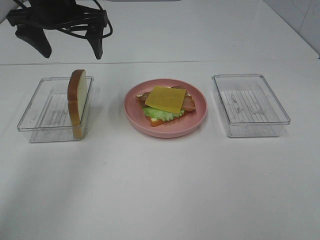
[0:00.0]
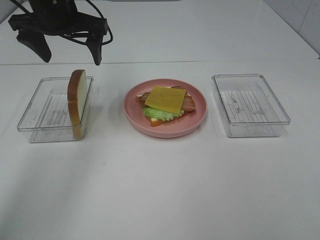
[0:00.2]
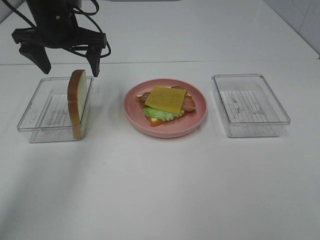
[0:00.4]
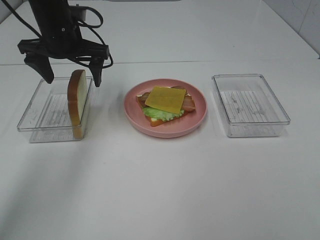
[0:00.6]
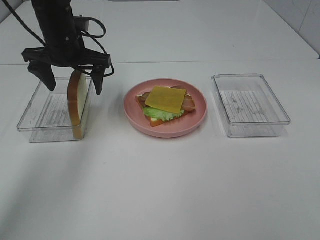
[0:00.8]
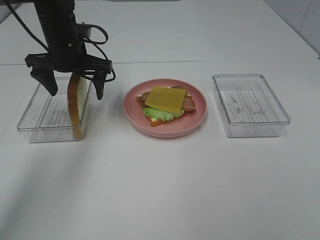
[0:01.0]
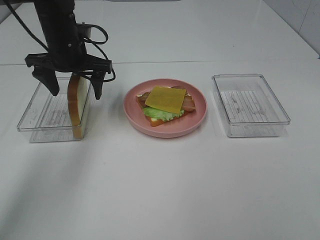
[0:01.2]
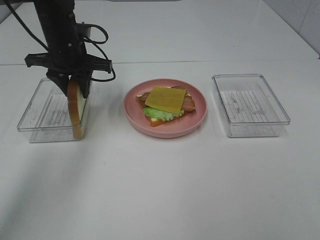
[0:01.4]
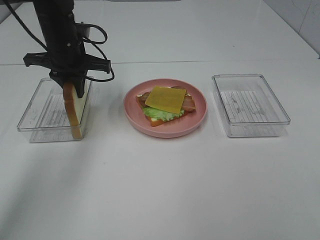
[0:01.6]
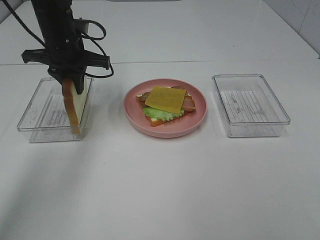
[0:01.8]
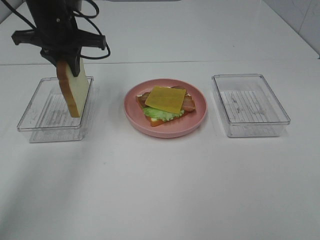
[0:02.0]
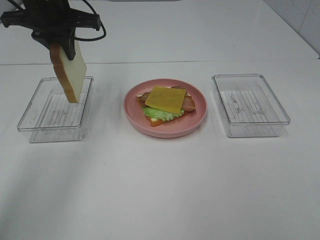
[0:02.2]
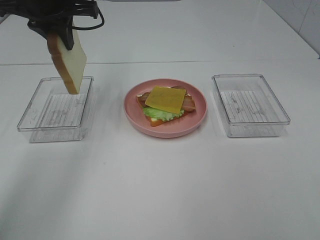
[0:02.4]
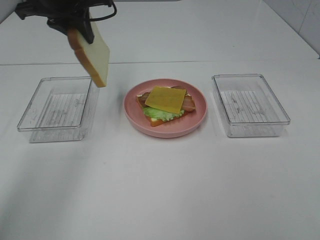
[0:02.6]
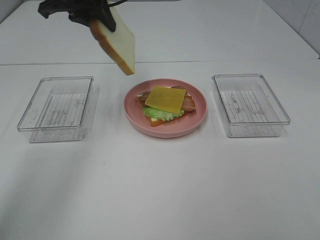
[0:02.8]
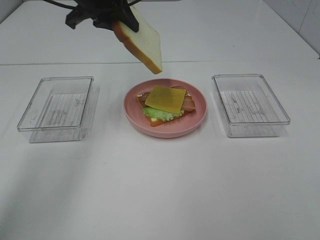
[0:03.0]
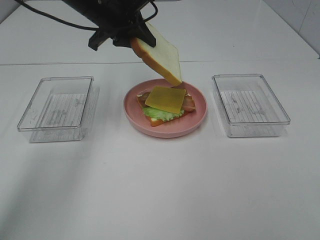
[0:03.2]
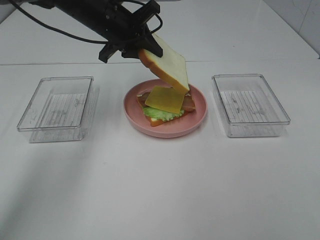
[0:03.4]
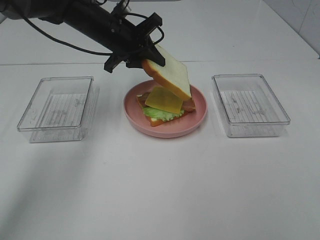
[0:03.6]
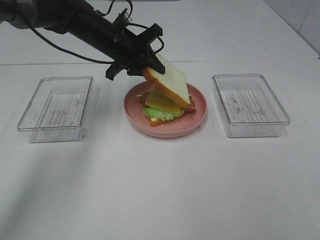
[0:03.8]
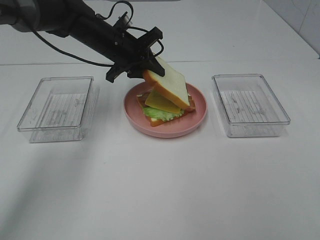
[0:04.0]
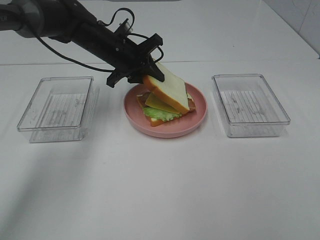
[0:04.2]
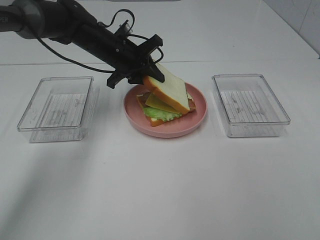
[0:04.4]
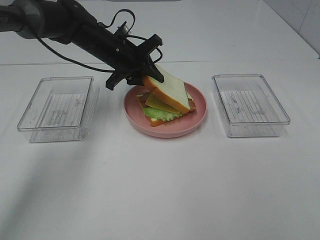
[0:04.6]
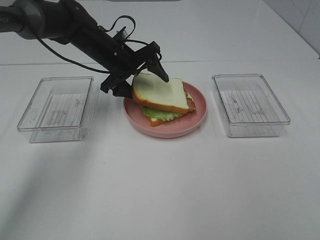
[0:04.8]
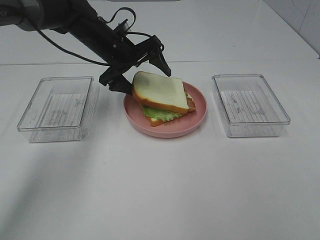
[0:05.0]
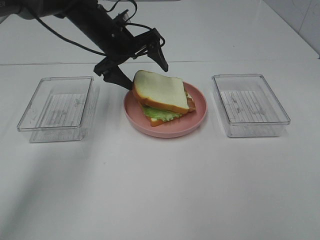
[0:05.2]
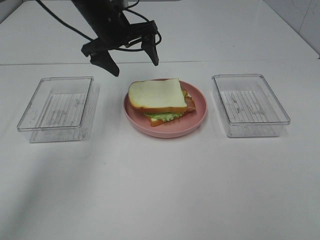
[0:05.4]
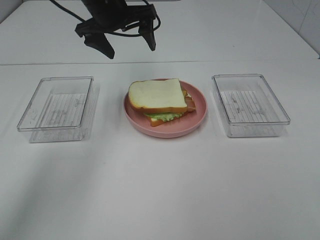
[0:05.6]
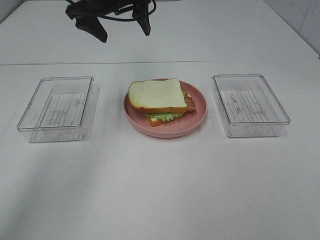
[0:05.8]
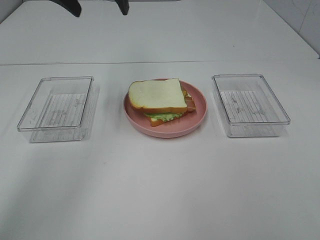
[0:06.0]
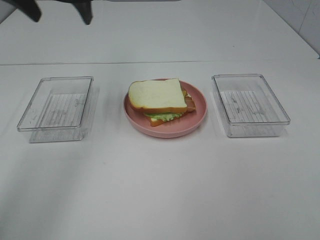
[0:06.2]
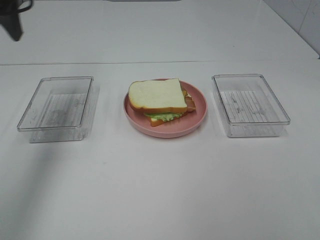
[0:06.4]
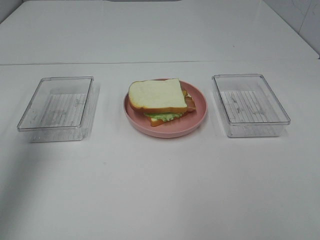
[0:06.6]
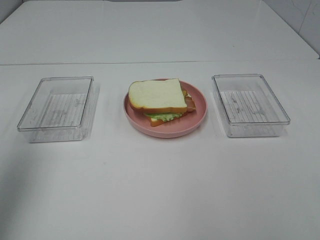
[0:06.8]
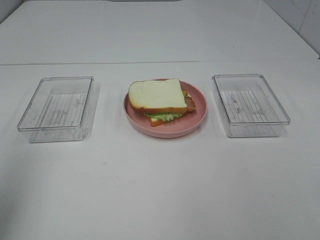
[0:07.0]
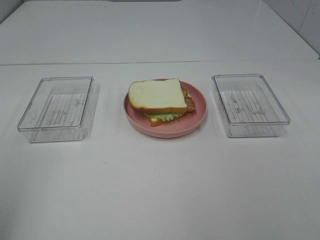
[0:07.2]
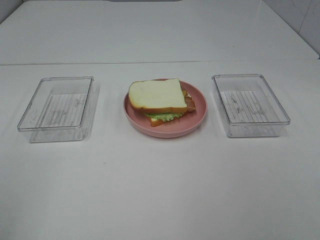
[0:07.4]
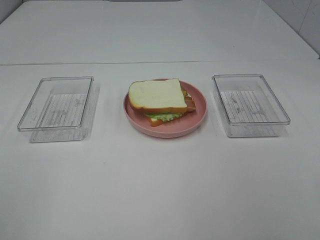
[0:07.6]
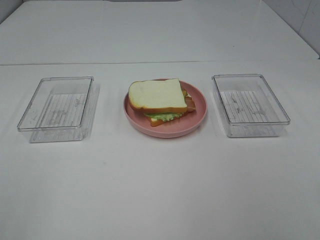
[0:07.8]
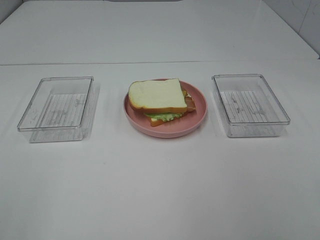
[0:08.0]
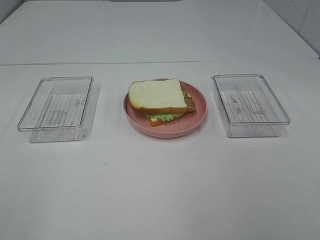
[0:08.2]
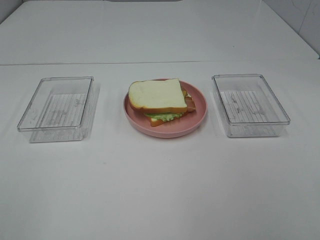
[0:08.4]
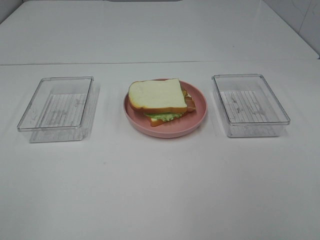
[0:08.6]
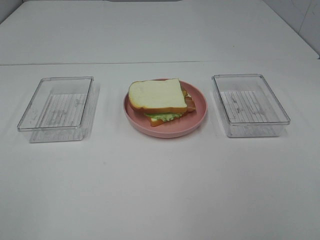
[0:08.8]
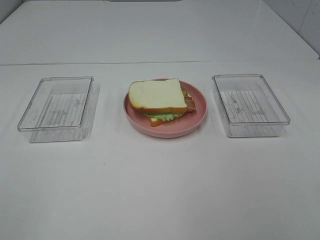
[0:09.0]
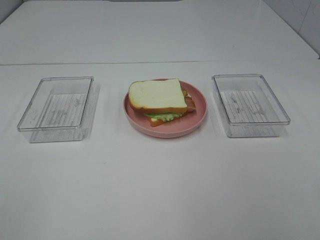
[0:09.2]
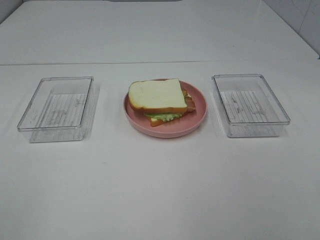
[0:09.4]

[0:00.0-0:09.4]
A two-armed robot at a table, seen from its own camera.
Task of the whole recording: Make sandwiches.
Step, 0:01.8 to 0:05.4: Left hand:place bacon on bacon.
0:00.0 to 0:01.6: The left gripper shifts approximately 10 cm downward, and closes.
0:01.6 to 0:03.2: The left gripper is displaced to the right and upward by approximately 10 cm.
0:03.2 to 0:04.8: The left gripper travels downward by some 10 cm, and opens its fingers.
0:04.8 to 0:06.2: The left gripper shifts about 20 cm upward and to the left.
0:06.2 to 0:07.8: The left gripper moves backward, approximately 40 cm.

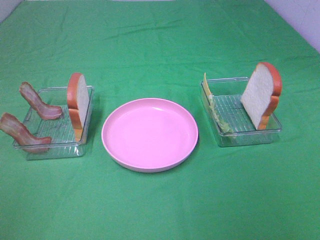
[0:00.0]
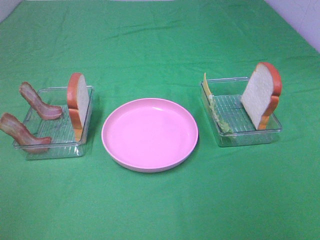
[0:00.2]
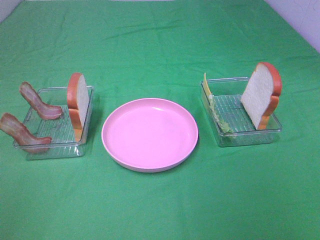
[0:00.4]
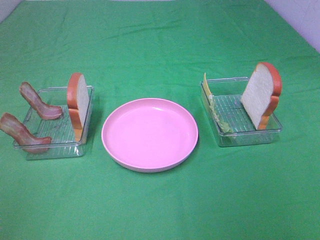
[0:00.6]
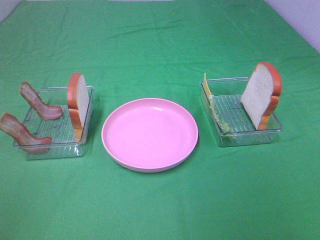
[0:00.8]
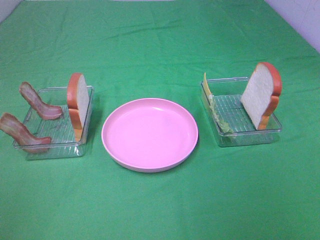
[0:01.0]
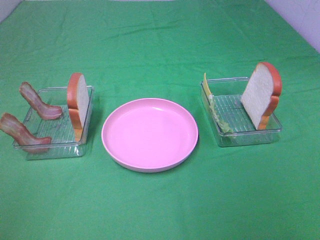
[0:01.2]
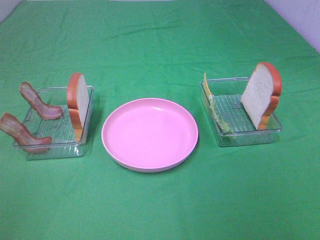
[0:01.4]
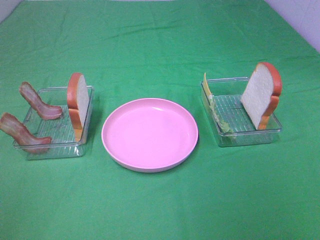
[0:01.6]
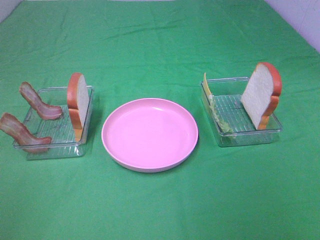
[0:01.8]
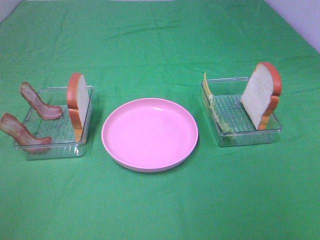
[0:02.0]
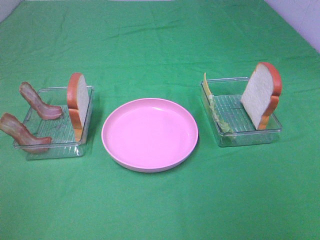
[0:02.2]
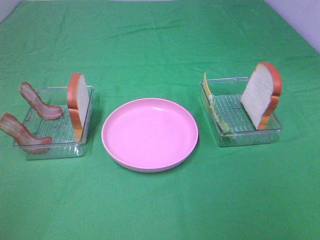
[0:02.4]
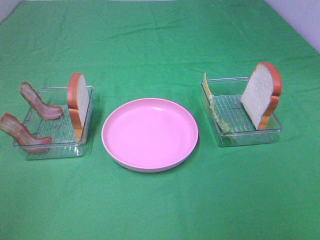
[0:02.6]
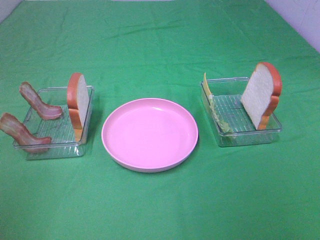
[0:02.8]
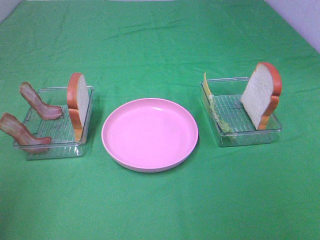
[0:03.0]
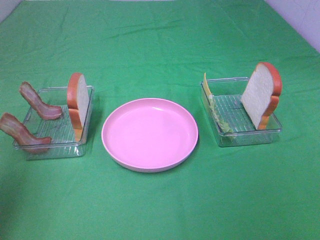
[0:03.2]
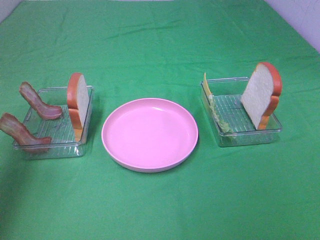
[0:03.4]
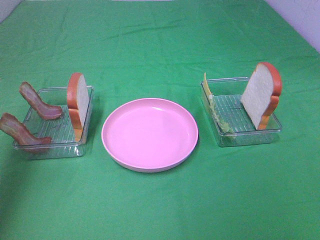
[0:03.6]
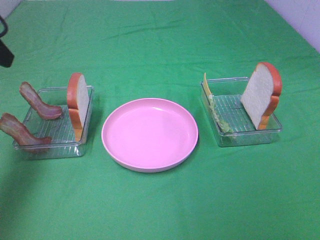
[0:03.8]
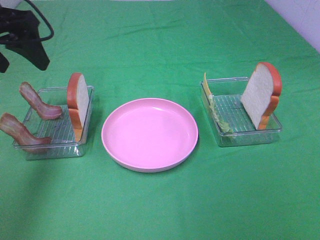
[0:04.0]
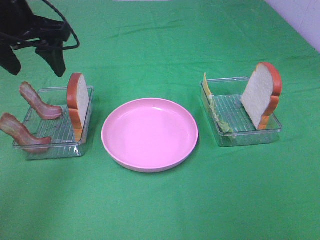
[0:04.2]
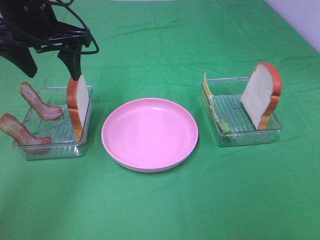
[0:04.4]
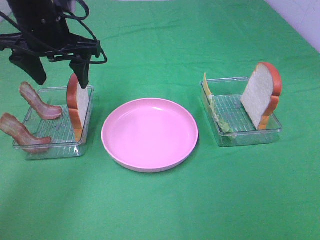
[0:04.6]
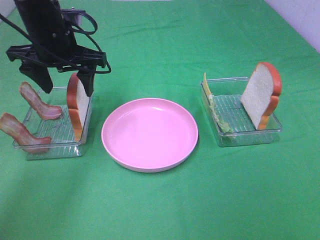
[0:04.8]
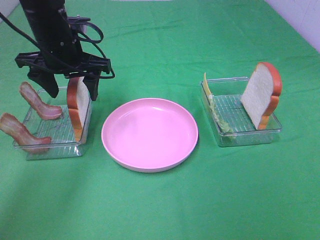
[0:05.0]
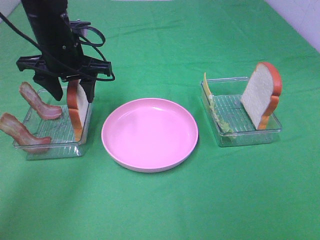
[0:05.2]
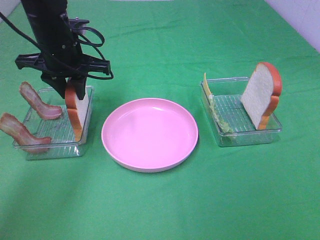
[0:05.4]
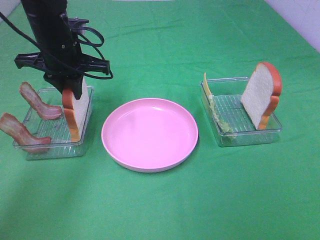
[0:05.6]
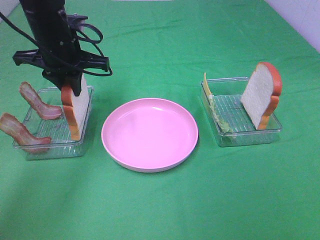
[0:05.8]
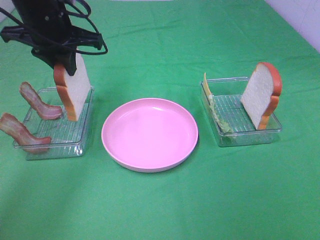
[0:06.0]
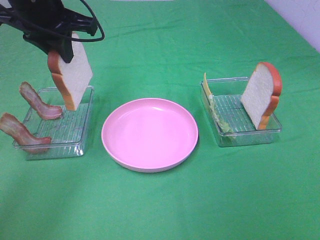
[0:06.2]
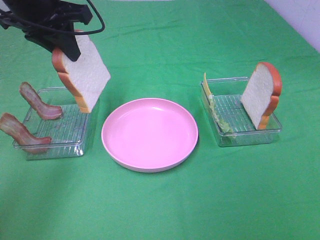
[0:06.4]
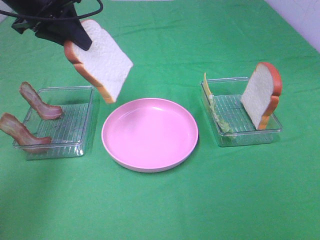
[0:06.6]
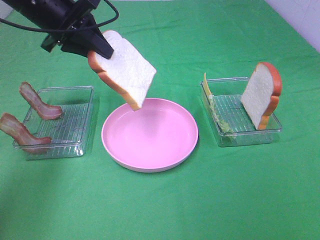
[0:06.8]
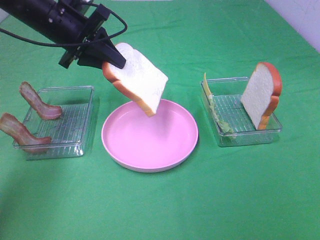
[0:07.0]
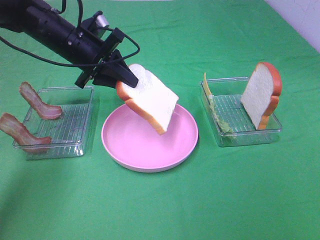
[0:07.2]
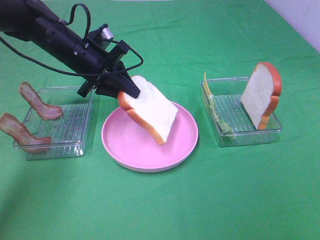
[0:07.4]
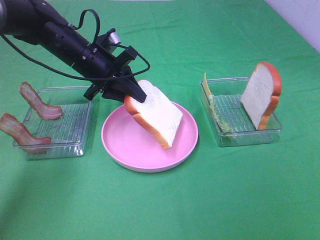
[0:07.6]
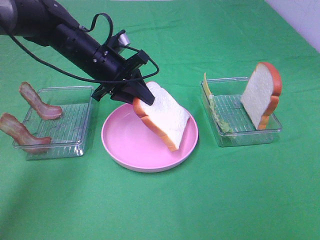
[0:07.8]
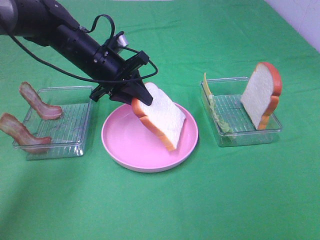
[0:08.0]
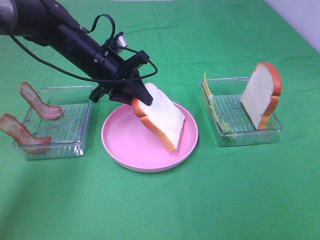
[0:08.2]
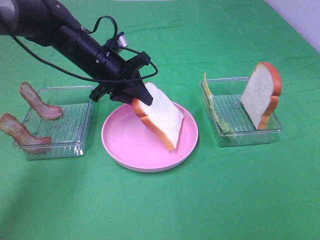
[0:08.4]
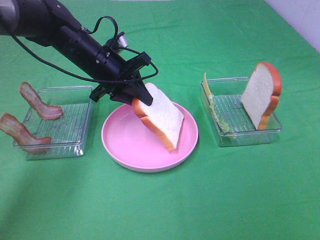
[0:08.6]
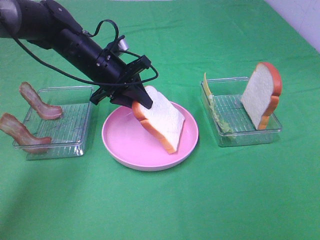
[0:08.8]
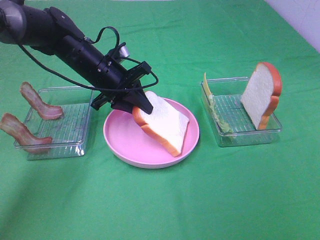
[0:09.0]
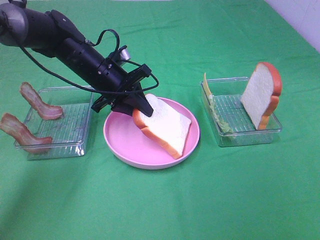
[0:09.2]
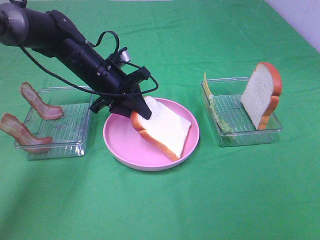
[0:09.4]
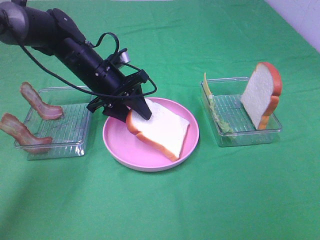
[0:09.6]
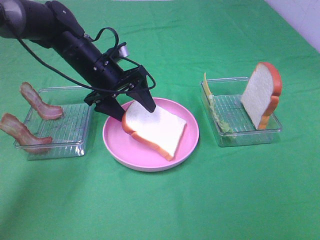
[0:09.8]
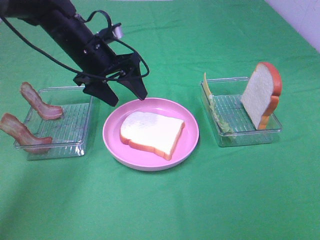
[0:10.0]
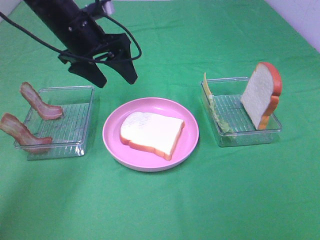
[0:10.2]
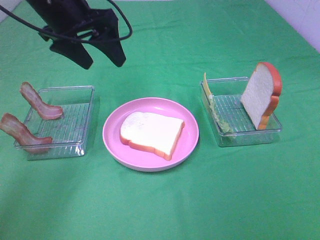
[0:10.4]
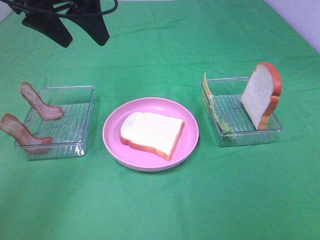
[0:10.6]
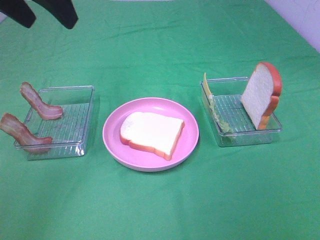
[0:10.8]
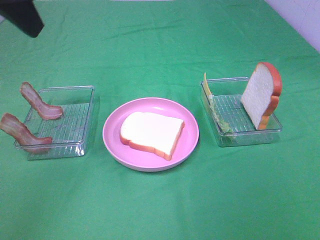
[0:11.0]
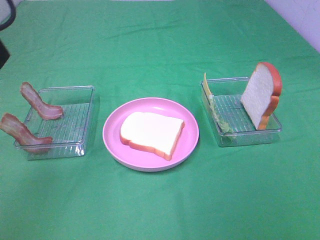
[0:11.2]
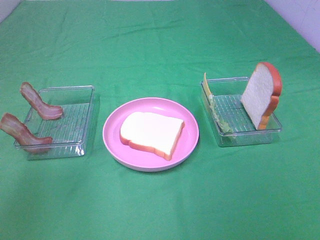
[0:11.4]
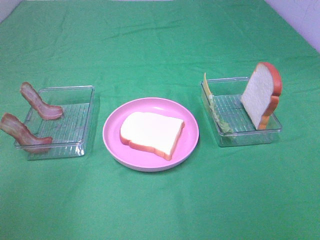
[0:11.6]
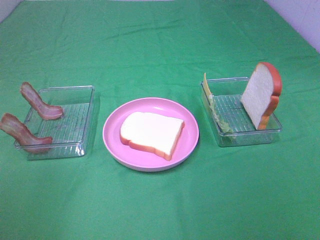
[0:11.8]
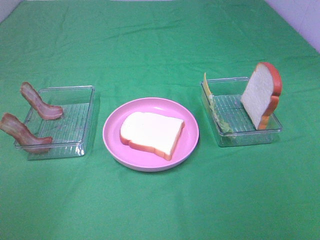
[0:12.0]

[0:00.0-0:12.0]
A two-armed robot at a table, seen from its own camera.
Task of the whole recording: Make sandwiches.
Step, 0:00.0 to 0:05.6: Left hand:grab the bread slice.
Step, 0:05.8 to 0:10.0: Left hand:place the bread slice on the plate.
0:00.0 to 0:01.6: Both grippers stay about where they are.
0:03.0 to 0:04.4: The left gripper goes about 30 cm forward and to the right.
0:04.4 to 0:06.0: The left gripper closes its fingers.
0:06.0 to 0:07.6: The left gripper is displaced downward by about 10 cm.
0:07.6 to 0:09.0: There are only small adjustments of the grippers.
0:09.0 to 0:10.4: The left gripper is displaced upward by approximately 15 cm, and opens its fingers.
0:10.4 to 0:12.0: The left gripper moves backward and to the left, some 35 cm.

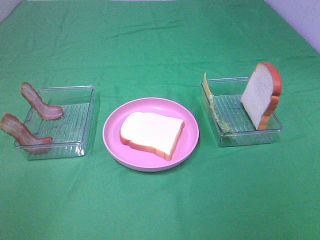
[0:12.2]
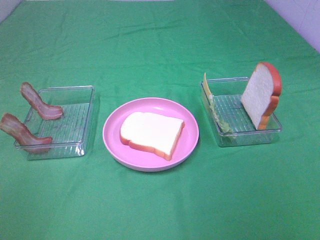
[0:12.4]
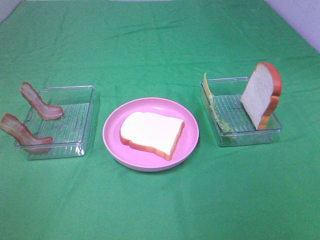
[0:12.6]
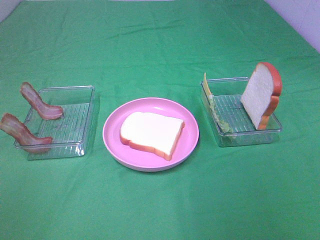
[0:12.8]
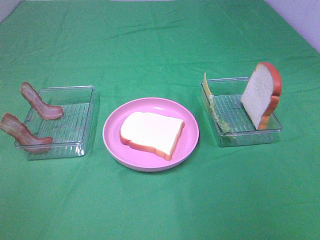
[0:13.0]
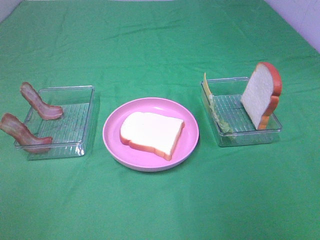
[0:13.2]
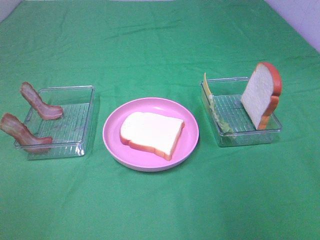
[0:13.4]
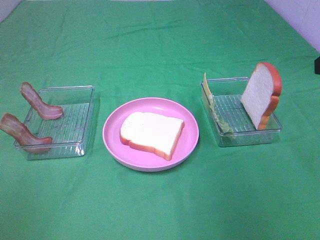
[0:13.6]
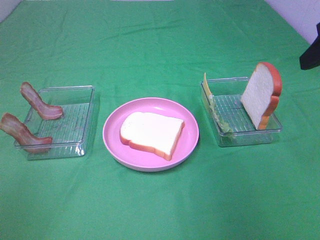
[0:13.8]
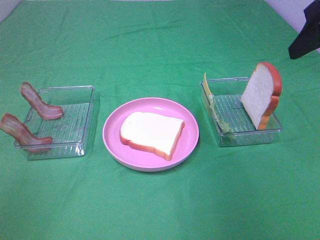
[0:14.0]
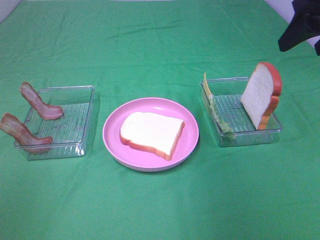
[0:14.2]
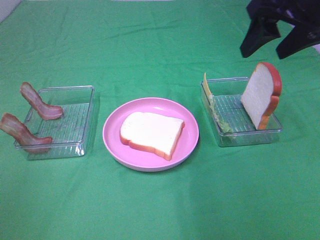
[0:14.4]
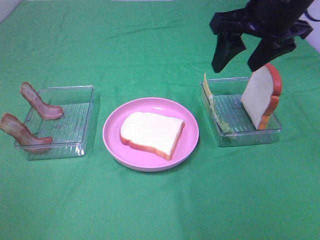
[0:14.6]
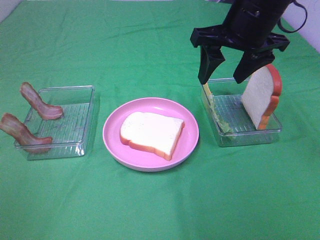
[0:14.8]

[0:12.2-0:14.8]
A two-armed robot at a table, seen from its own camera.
Task of the whole recording: Make sandwiches.
0:13.4 to 0:14.8: The right gripper travels forward and to the left by roughly 25 cm.
